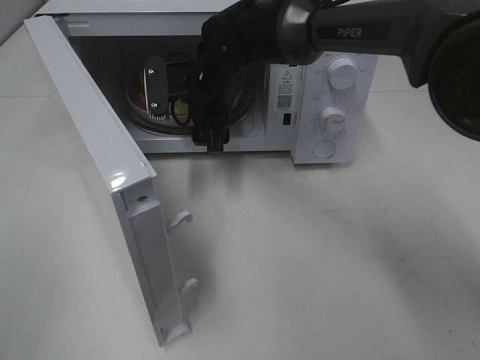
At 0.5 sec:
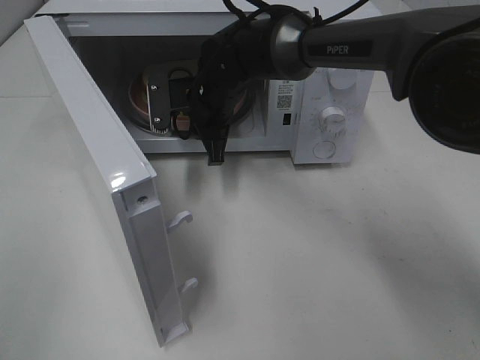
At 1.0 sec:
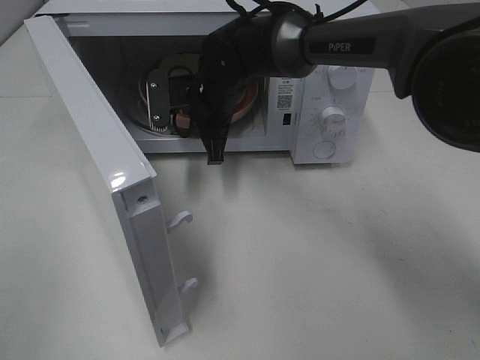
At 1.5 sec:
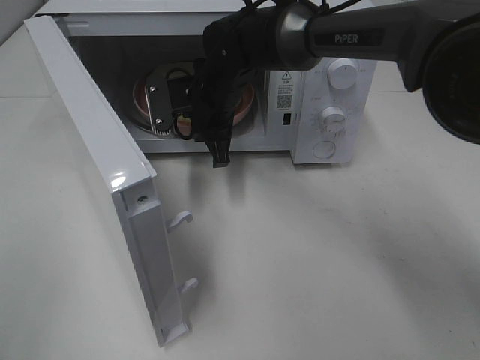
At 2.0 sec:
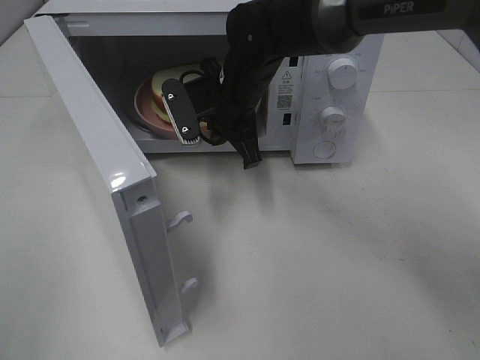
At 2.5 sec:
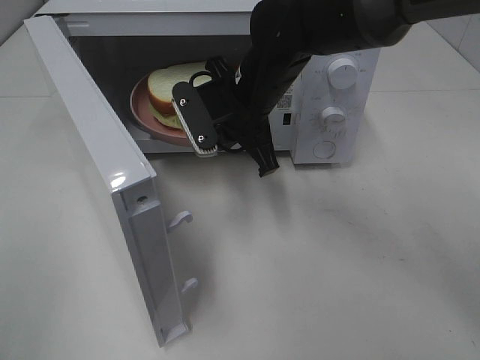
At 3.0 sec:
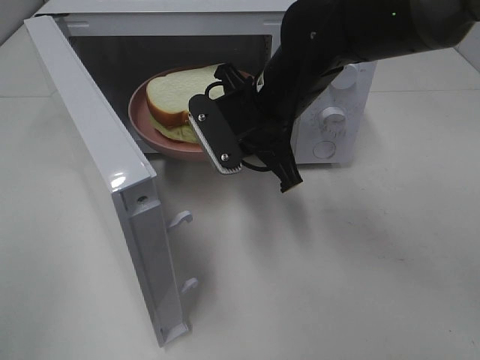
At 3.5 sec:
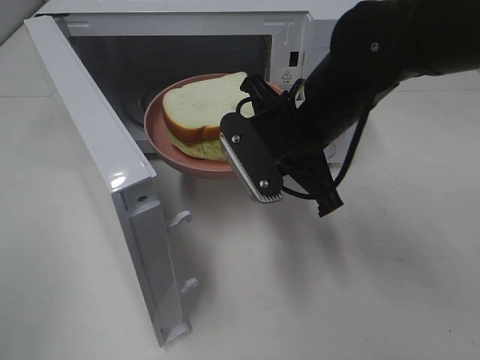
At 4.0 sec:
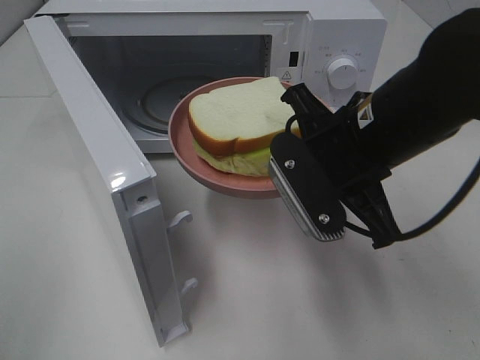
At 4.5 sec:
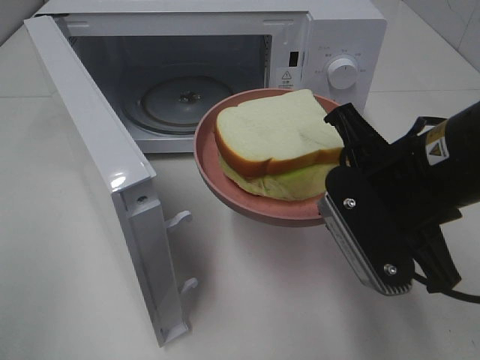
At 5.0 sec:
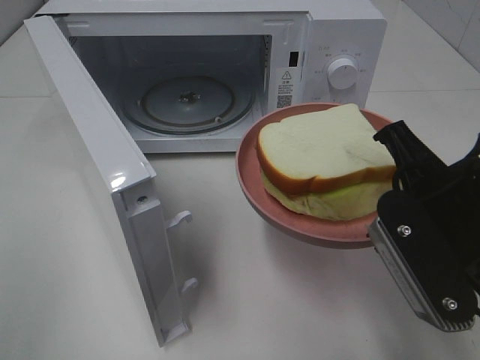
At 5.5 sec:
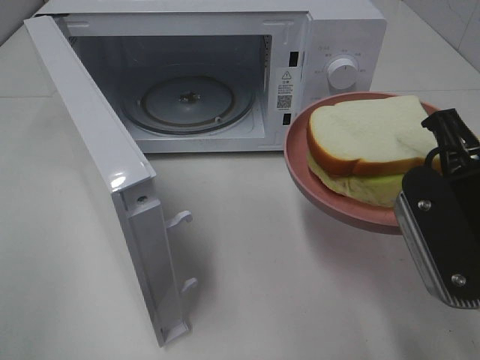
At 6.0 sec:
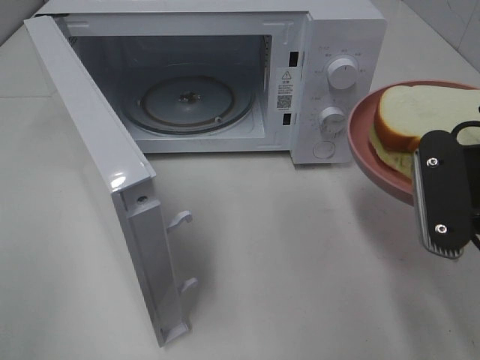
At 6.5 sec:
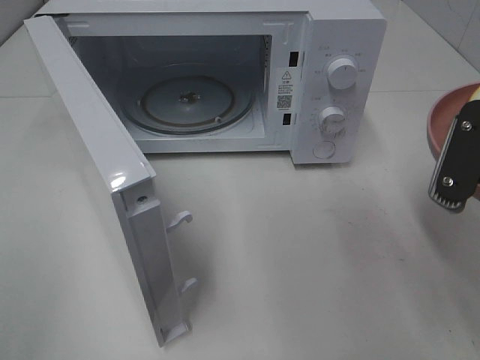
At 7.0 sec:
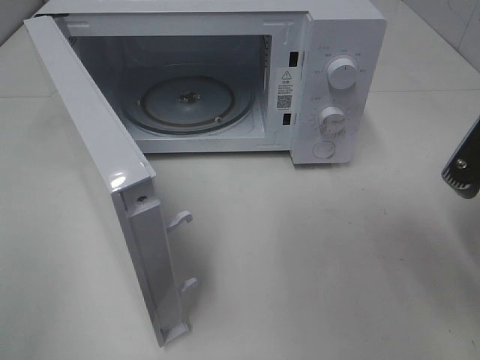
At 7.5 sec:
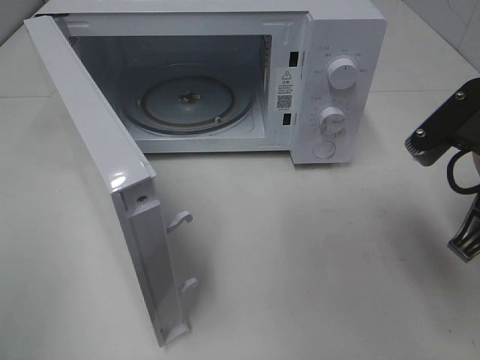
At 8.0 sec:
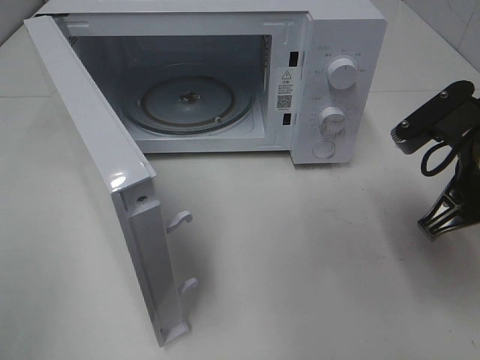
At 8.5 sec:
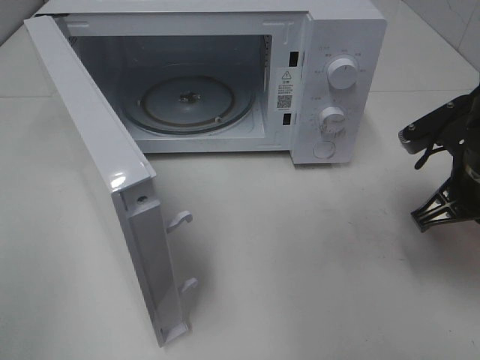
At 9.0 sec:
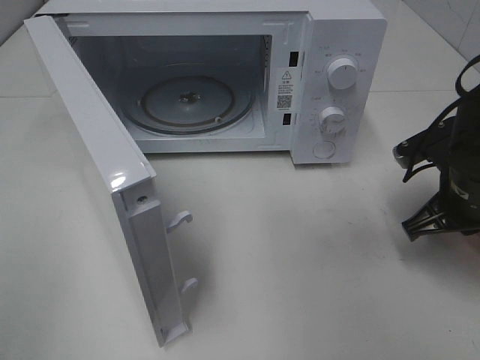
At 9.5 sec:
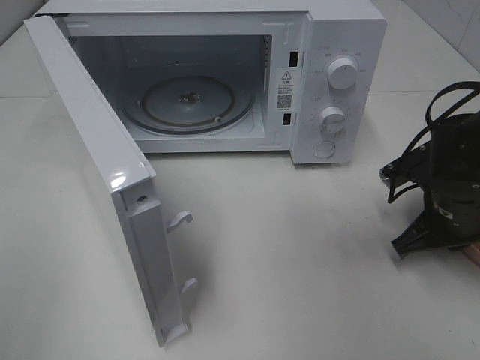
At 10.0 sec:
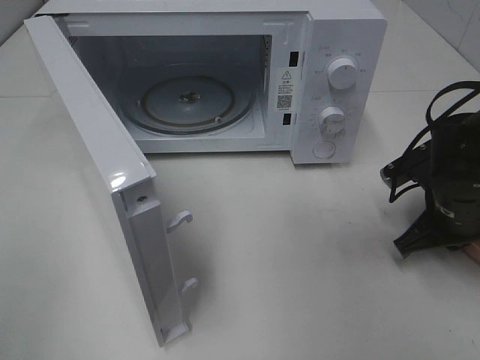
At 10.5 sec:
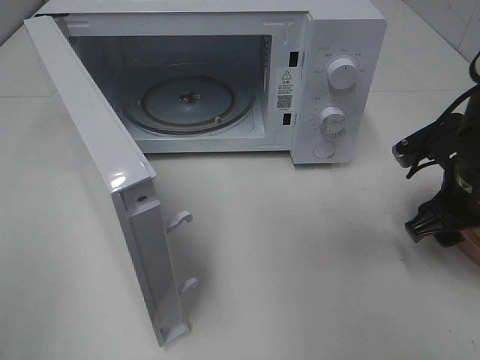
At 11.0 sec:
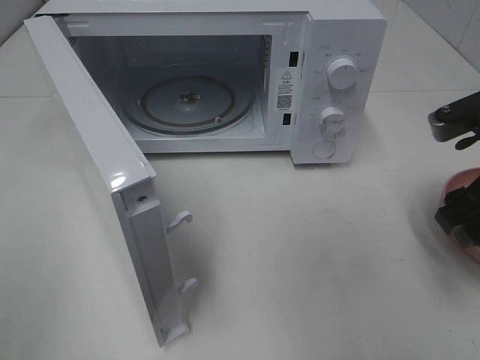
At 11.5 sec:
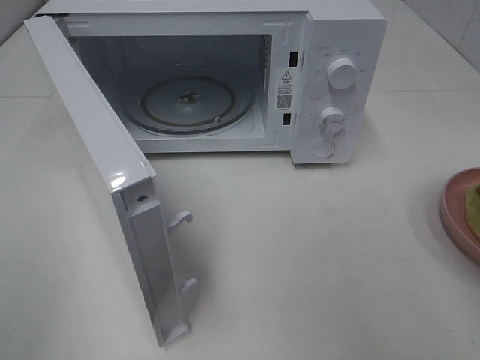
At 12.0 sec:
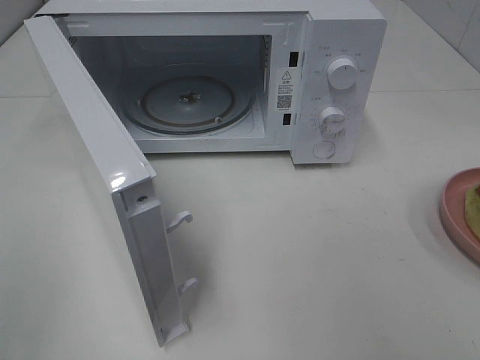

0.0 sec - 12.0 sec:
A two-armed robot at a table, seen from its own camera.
Task of the whole recording: Heat Sandwich.
Step, 1.0 sec - 10.5 sec: Right hand: place the plate on the table.
0.0 sec - 2.0 sec: The right gripper closes its fingers.
2.0 sec - 4.0 sec: The right gripper shifts roughly 20 cm backward and to the right.
4.0 sec - 6.0 sec: The right gripper goes some 10 cm to the right and backward.
6.0 sec - 8.0 sec: The right gripper travels forward by some 5 cm.
8.0 sec - 10.0 sec: The right gripper goes roughly 10 cm downward.
10.0 sec - 12.0 sec: The right gripper moves upward and backward, approximately 30 cm, and opens.

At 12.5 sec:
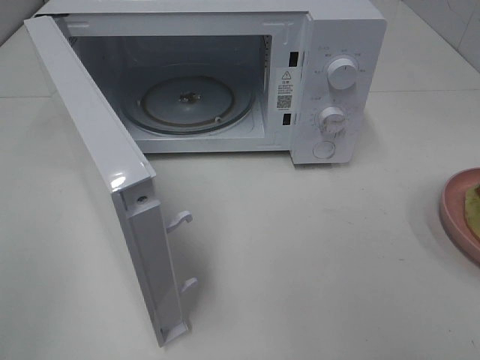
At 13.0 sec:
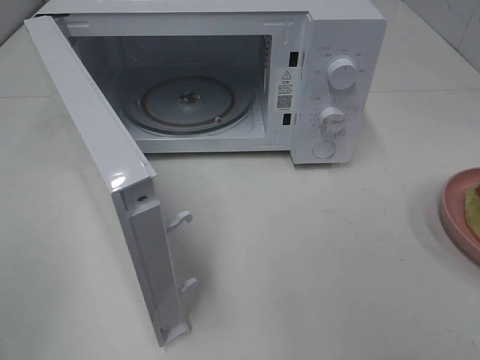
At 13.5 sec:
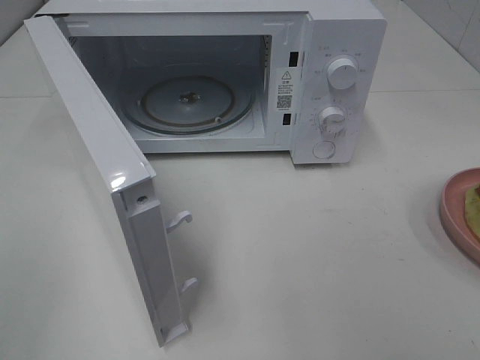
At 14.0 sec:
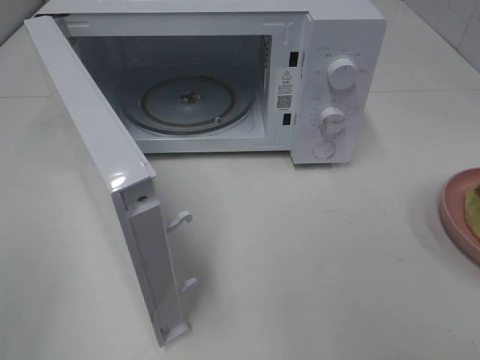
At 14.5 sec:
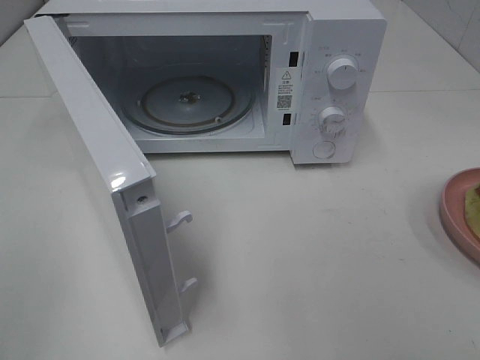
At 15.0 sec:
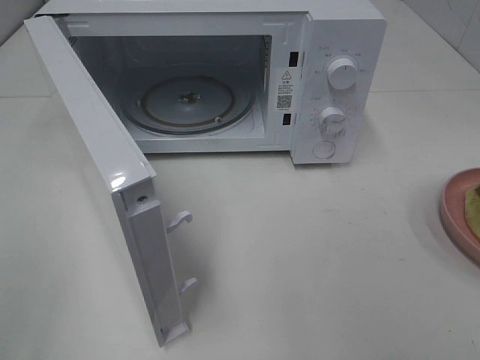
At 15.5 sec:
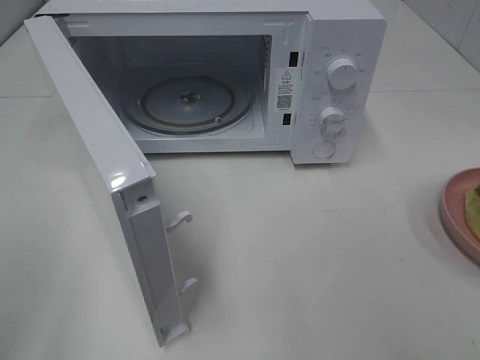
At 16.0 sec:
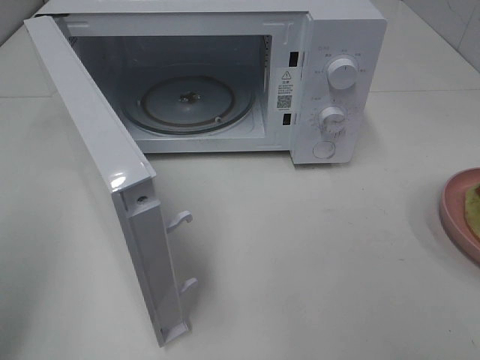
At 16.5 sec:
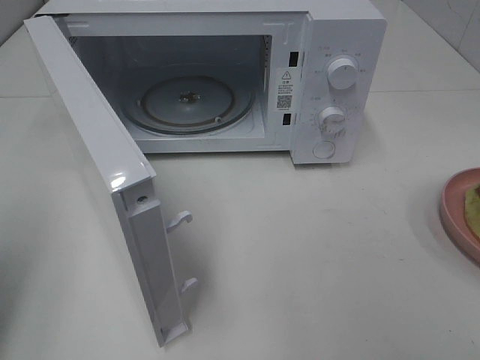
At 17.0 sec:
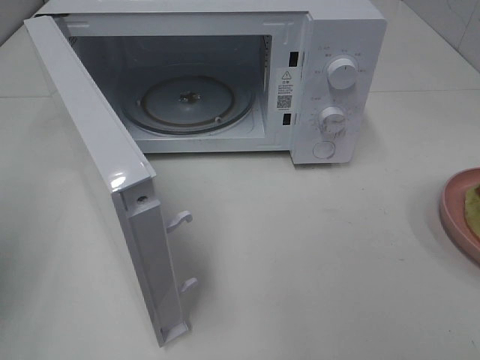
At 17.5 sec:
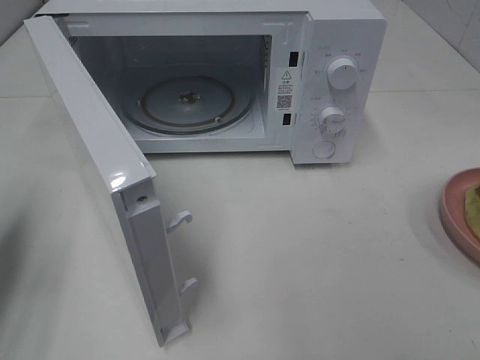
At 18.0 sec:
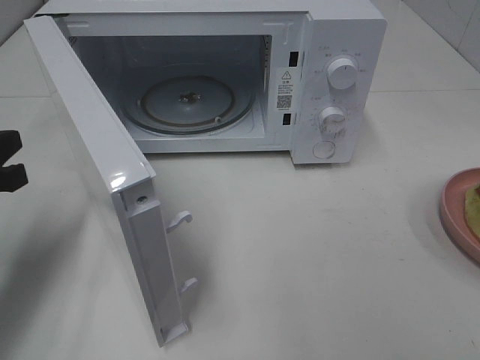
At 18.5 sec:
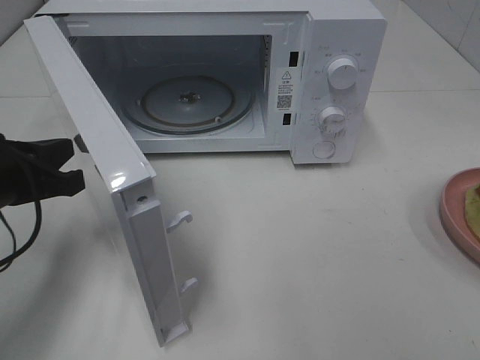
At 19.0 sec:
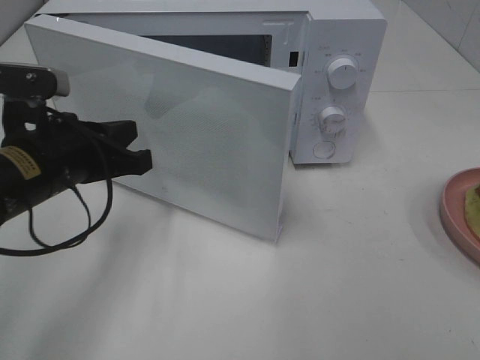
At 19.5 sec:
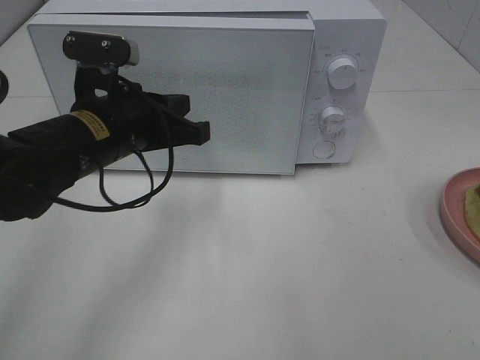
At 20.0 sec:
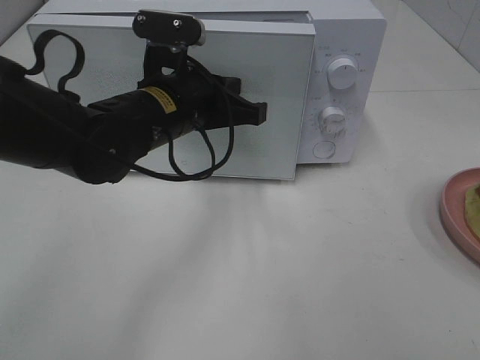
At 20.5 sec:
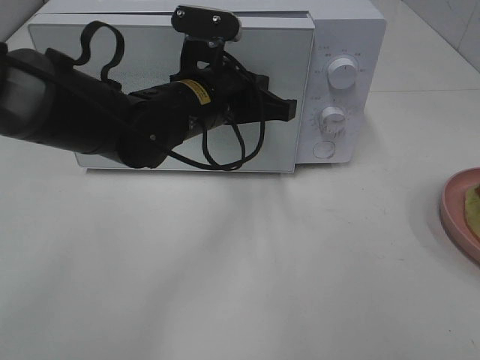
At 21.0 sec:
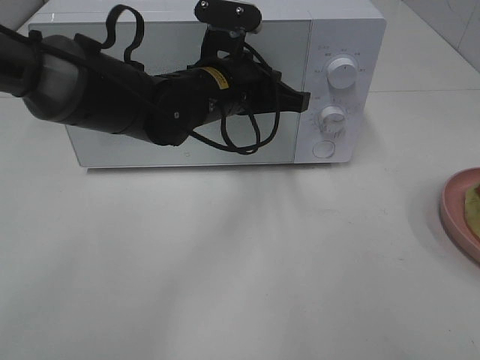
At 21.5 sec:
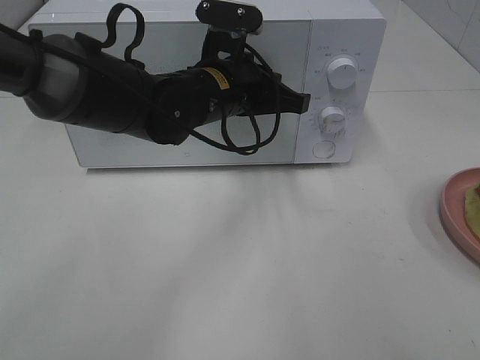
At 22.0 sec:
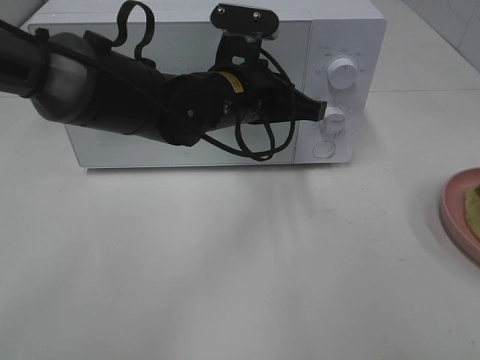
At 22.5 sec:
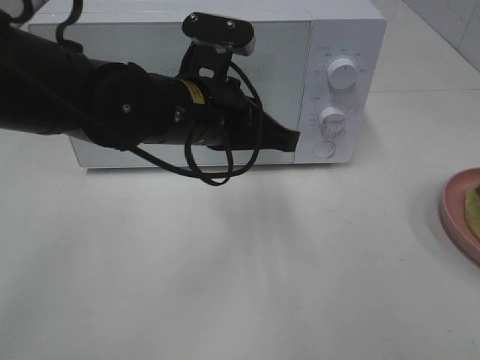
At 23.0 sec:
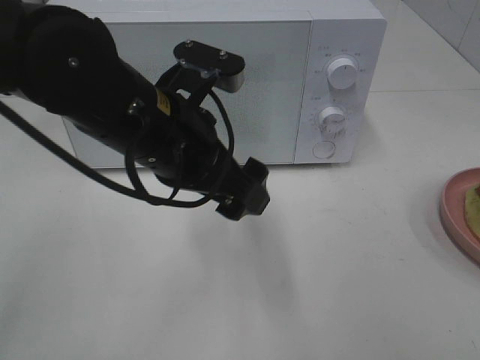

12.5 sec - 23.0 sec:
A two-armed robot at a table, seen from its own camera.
Task of the whole recording: Heat Sandwich.
Step, 12.5 sec - 22.0 sec: Left hand: close the microwave door.
14.5 sec - 16.5 sec: The left gripper shifts some 15 cm forward, and closes up.
16.5 sec - 19.0 sec: The left gripper heads to the right, forward and downward, covering some 20 cm.
19.0 sec - 21.0 sec: The left gripper goes some 20 cm to the right and forward.
21.0 sec - 23.0 sec: The left gripper moves backward, some 10 cm, and opens its fingers.

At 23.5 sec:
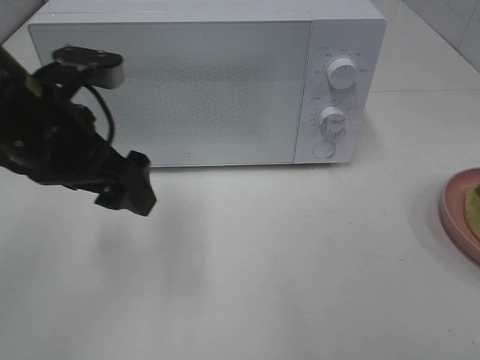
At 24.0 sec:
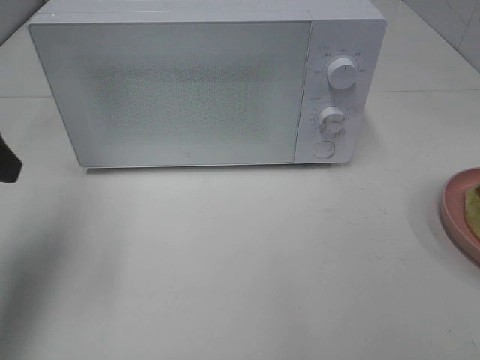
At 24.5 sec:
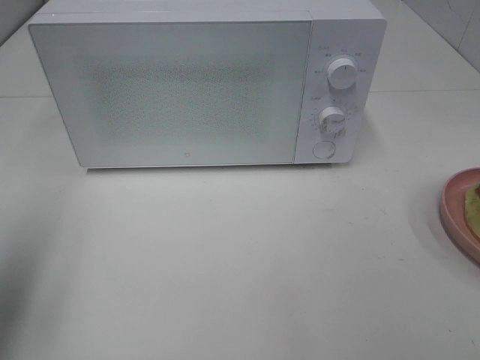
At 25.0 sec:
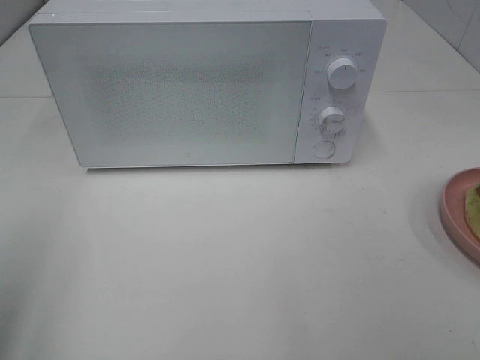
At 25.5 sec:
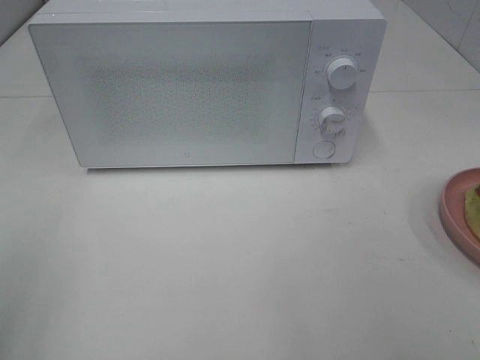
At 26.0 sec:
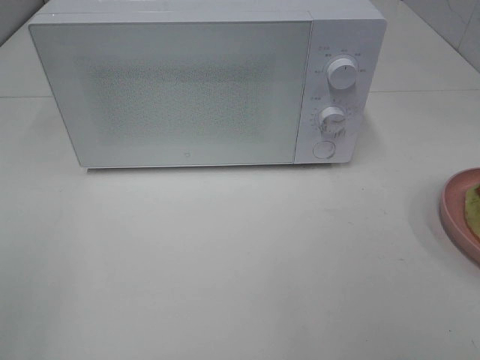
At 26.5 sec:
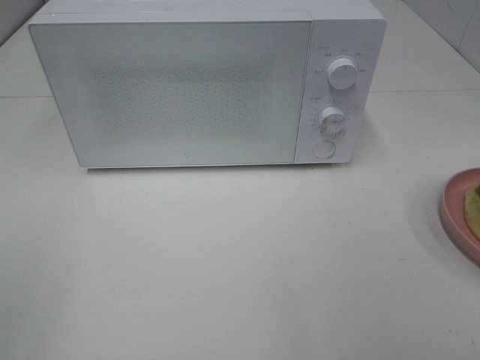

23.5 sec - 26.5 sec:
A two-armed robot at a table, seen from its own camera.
Task of the whole recording: Heat Sandwich.
23.5 sec - 25.0 sec: The left gripper moves backward and to the left, some 25 cm.
